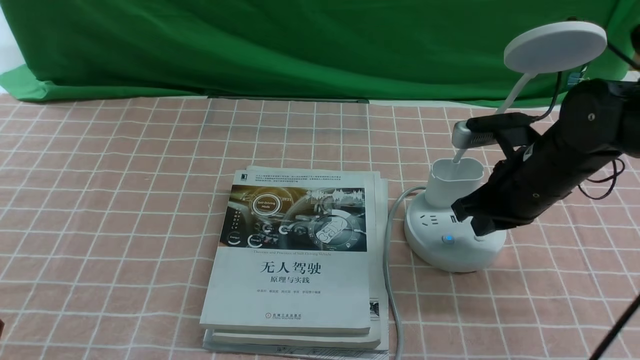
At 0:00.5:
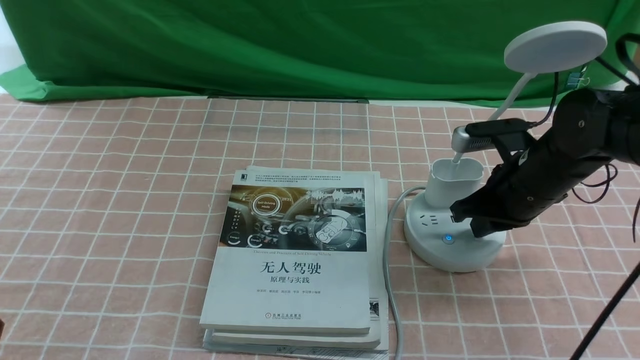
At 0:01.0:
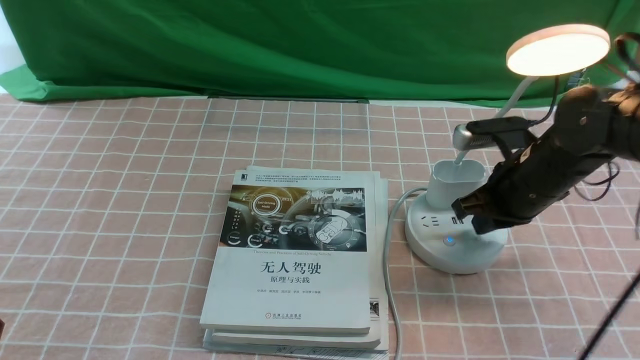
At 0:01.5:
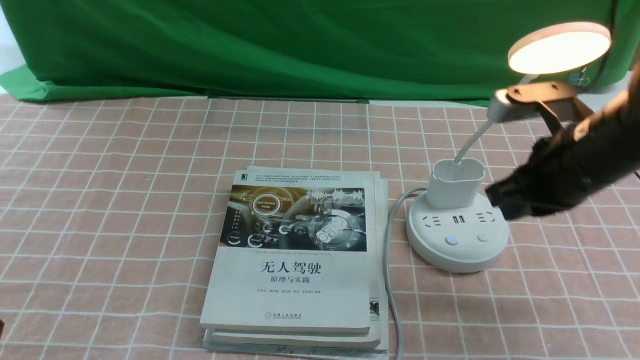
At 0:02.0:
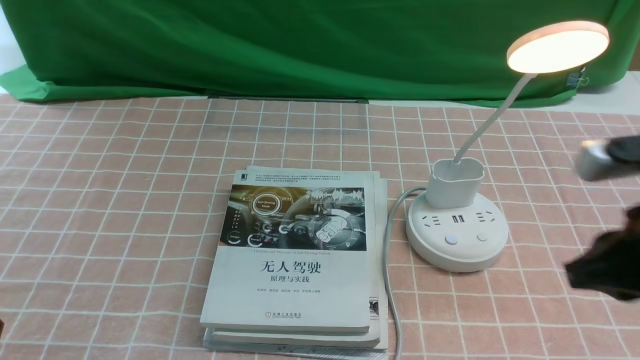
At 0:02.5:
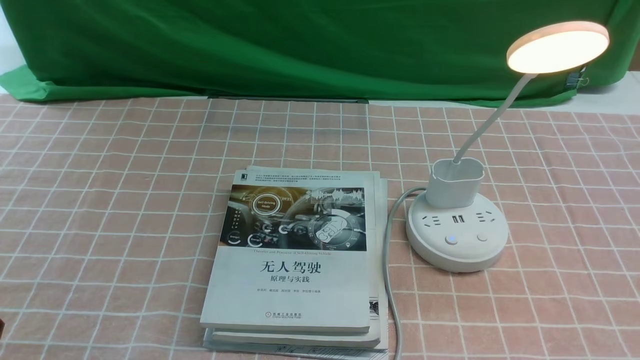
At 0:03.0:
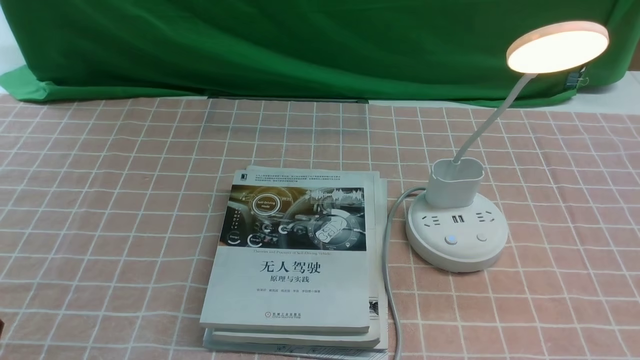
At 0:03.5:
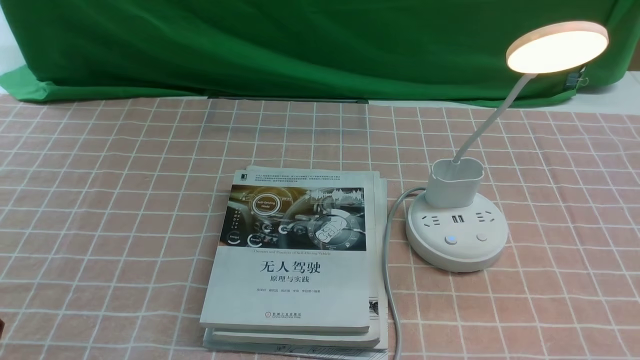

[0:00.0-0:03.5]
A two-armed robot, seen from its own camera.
0:00.0 to 0:02.0: The right gripper is displaced backward and upward by roughly 20 cm.
0:02.0 to 0:03.5: The right gripper shifts some 20 cm backward, downward and to the right.

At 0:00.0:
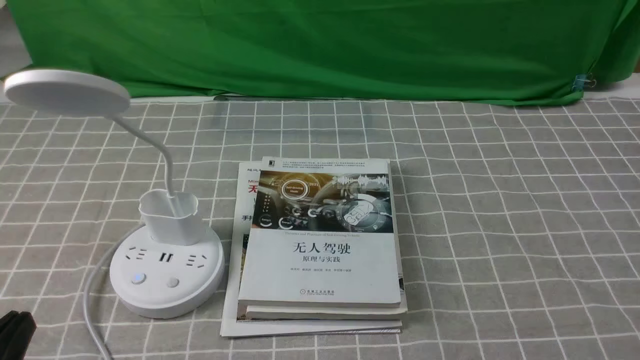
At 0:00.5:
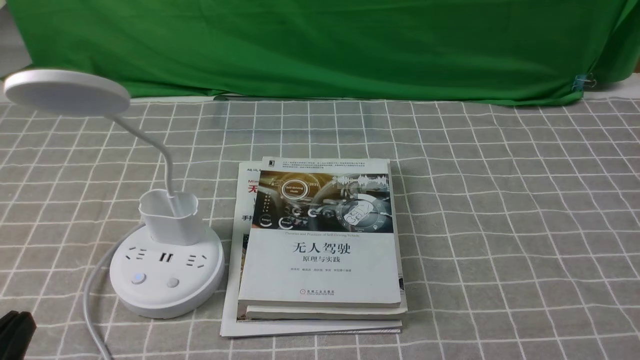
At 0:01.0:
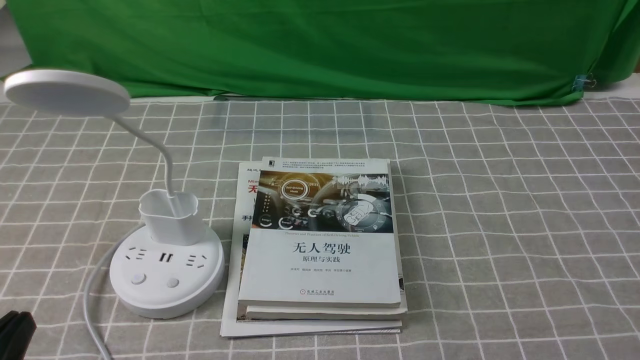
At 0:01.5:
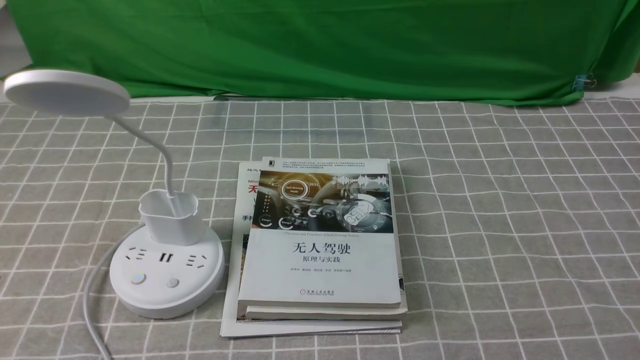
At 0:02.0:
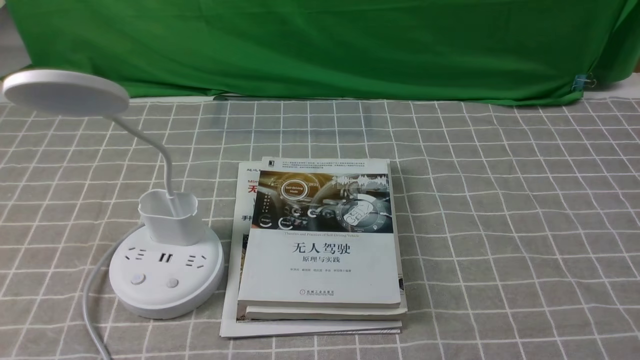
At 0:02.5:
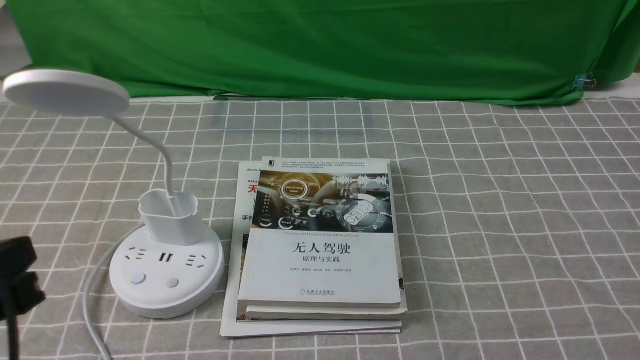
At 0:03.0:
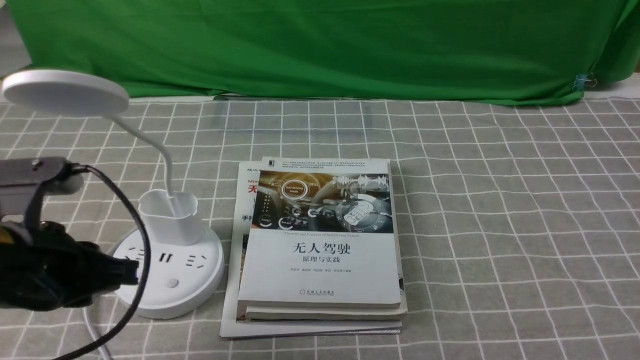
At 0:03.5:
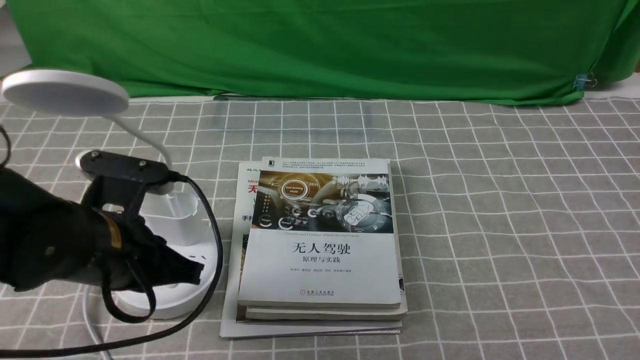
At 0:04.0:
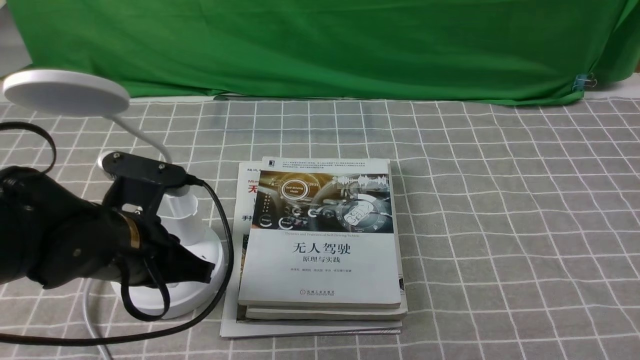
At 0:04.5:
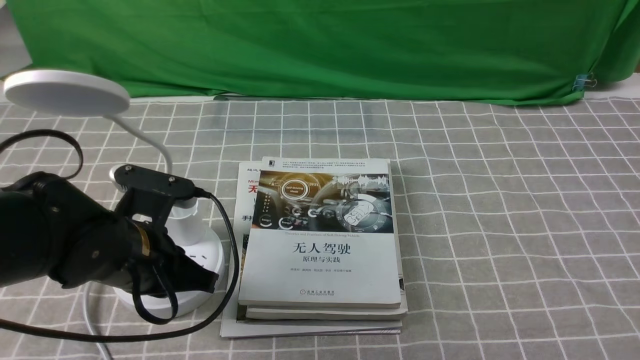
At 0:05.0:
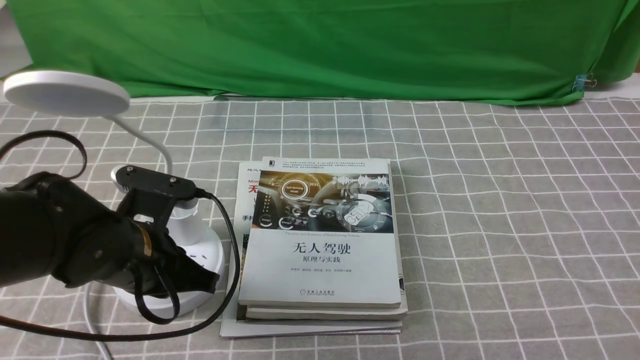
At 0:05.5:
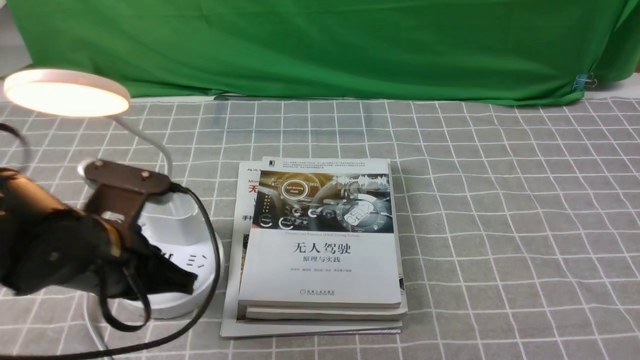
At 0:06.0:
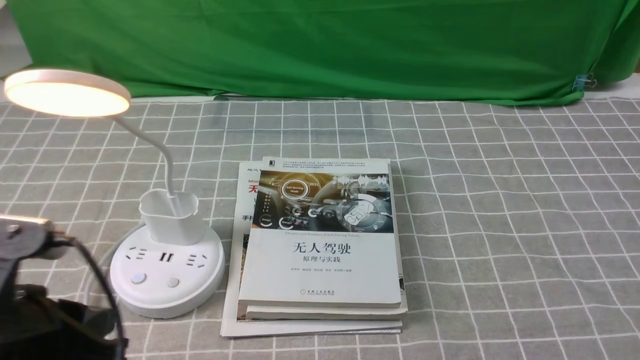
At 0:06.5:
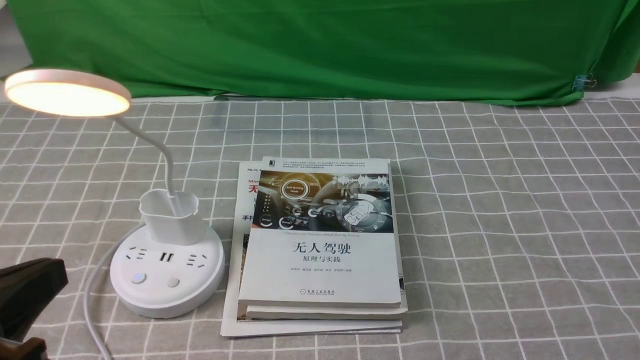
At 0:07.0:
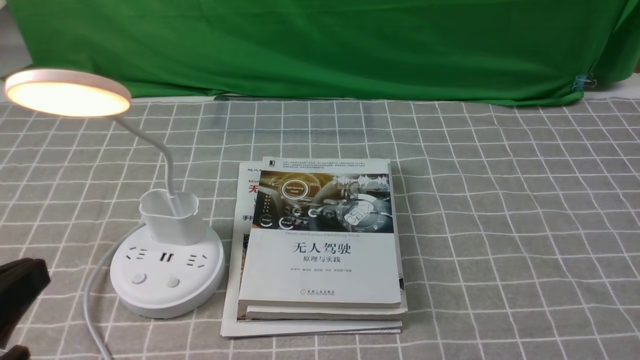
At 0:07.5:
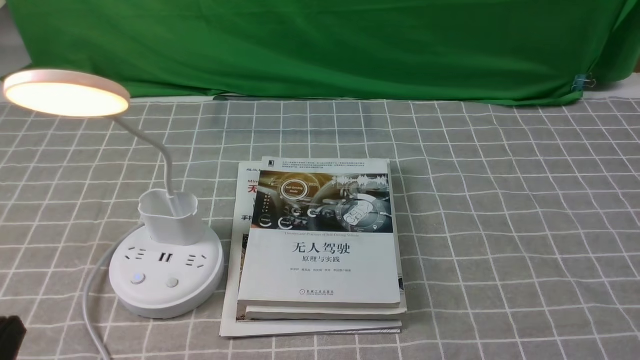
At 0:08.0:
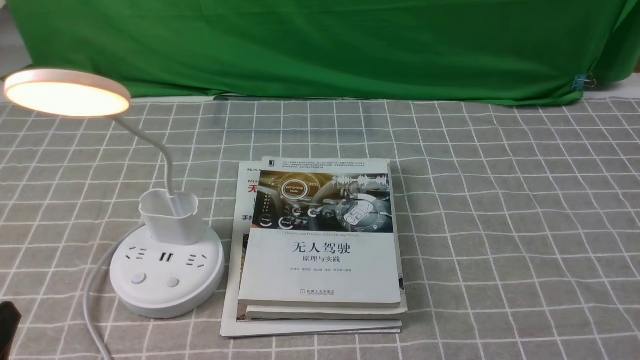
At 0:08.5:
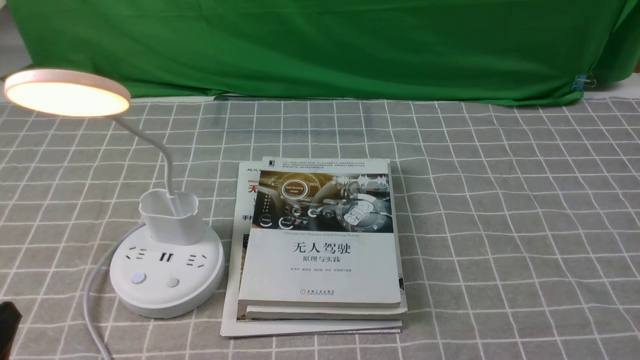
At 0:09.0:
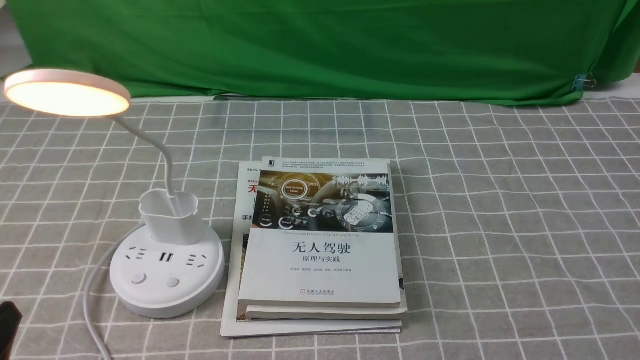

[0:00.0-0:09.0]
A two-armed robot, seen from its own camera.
Step, 0:00.0 to 0:05.5: use the left arm to press the button switch on the lamp holder.
0:02.0 to 0:04.5: The left gripper goes approximately 20 cm forward and to the right.
0:04.5 to 0:07.0: The left gripper heads backward and upward, covering roughly 20 cm.
0:07.0 to 0:09.0: The left gripper goes roughly 10 cm downward, and opens up.
